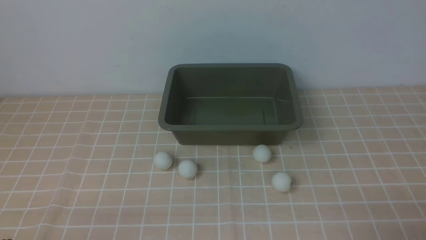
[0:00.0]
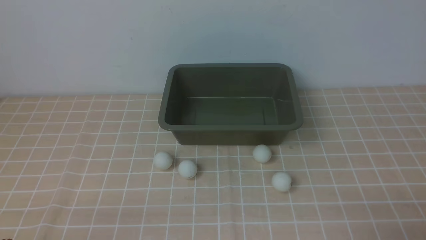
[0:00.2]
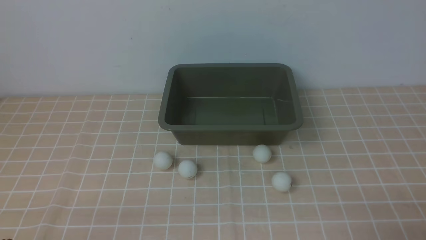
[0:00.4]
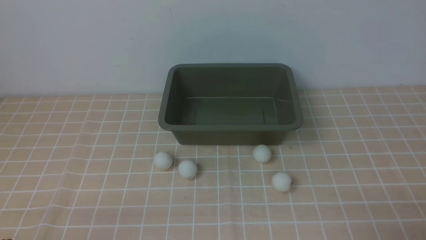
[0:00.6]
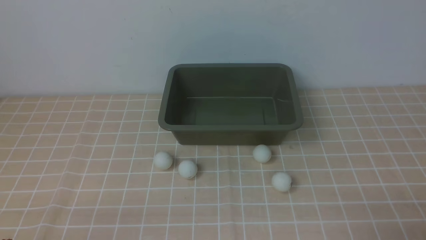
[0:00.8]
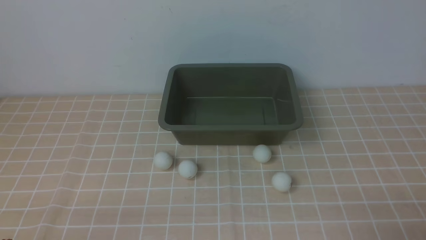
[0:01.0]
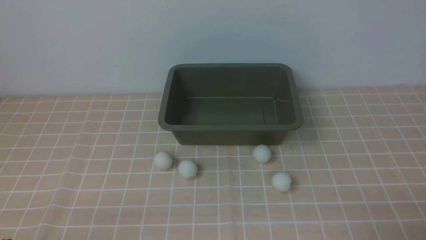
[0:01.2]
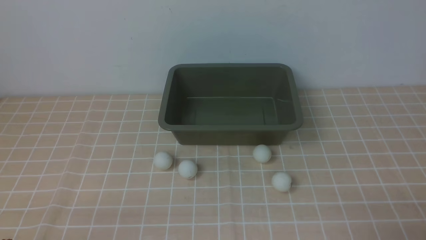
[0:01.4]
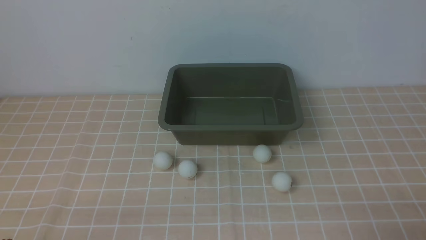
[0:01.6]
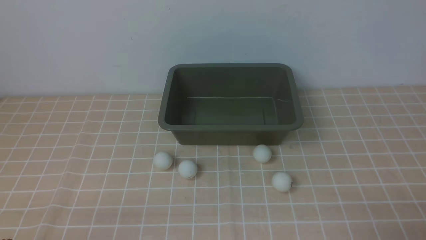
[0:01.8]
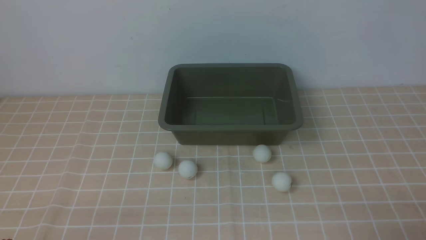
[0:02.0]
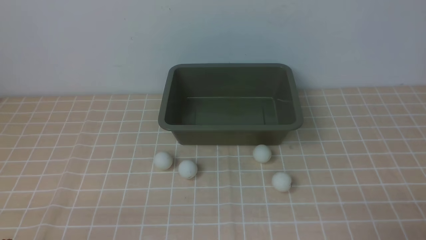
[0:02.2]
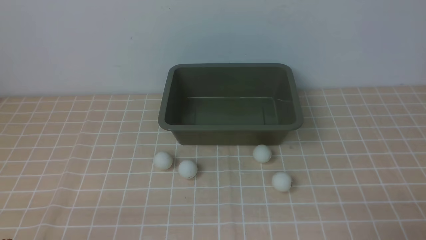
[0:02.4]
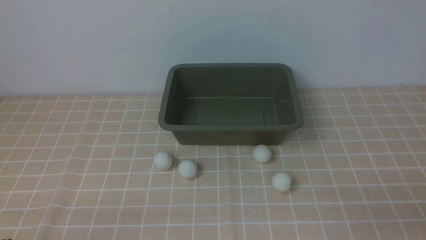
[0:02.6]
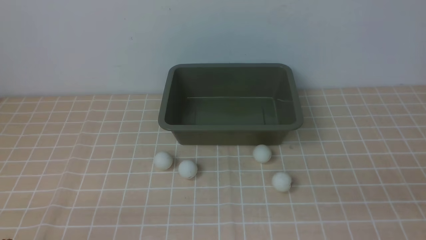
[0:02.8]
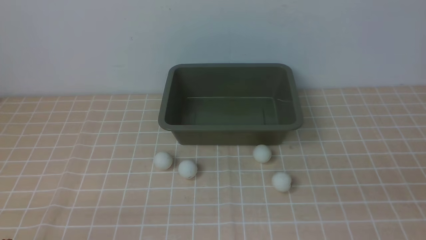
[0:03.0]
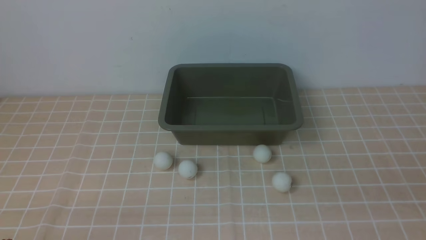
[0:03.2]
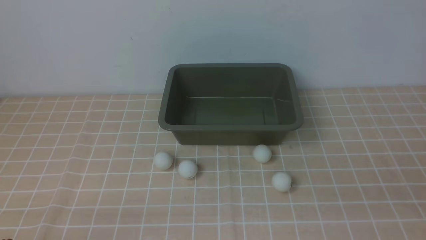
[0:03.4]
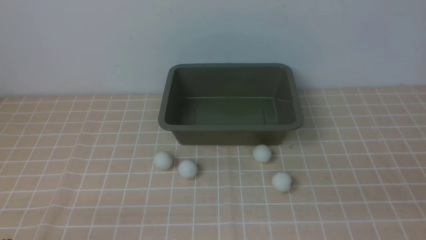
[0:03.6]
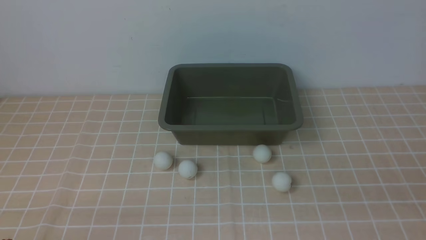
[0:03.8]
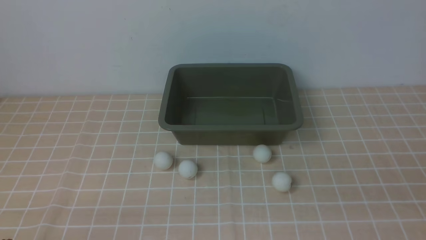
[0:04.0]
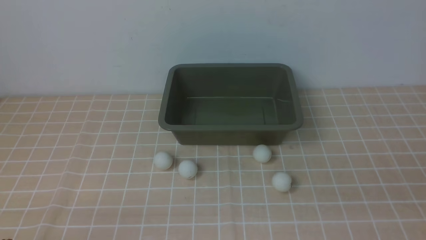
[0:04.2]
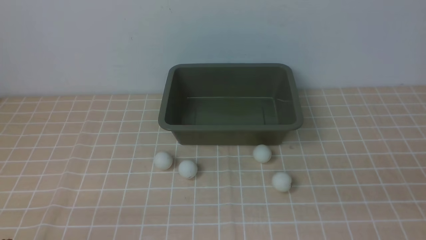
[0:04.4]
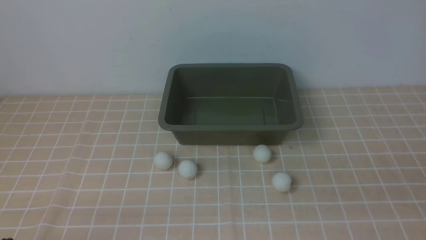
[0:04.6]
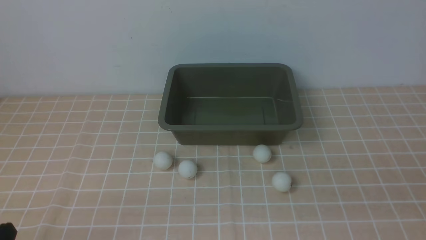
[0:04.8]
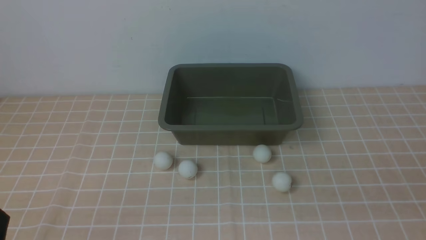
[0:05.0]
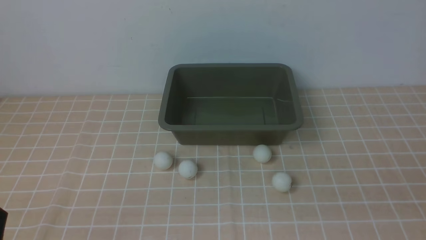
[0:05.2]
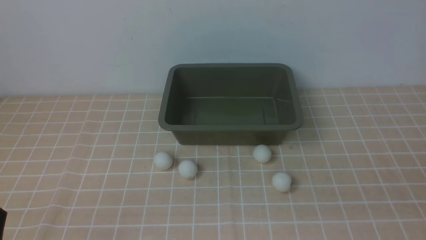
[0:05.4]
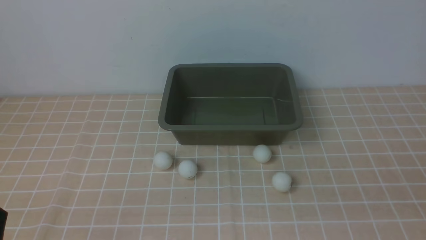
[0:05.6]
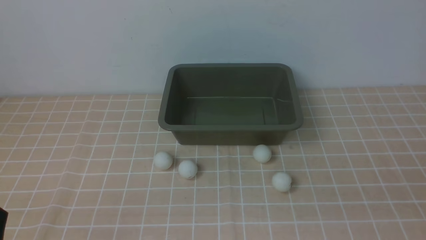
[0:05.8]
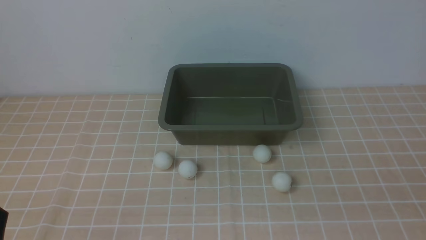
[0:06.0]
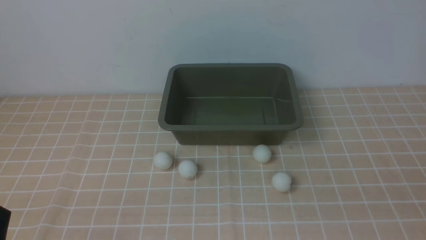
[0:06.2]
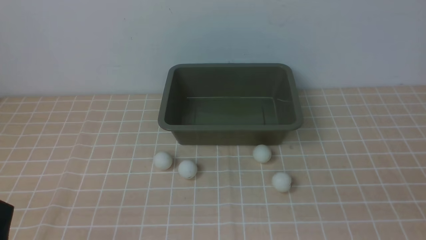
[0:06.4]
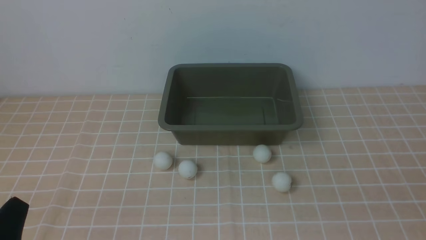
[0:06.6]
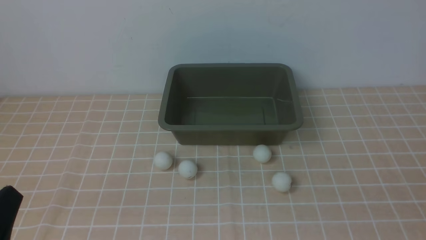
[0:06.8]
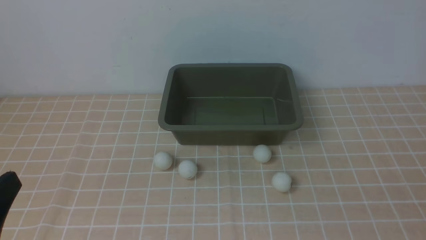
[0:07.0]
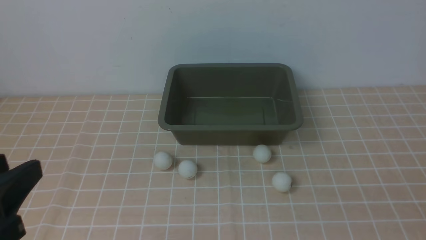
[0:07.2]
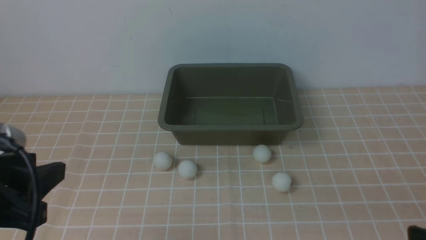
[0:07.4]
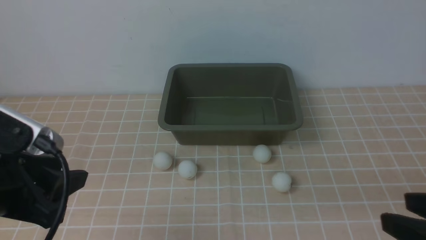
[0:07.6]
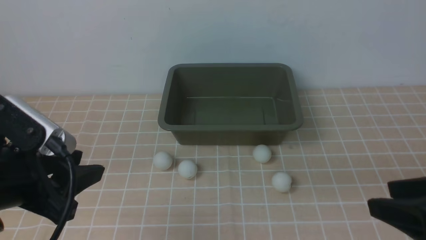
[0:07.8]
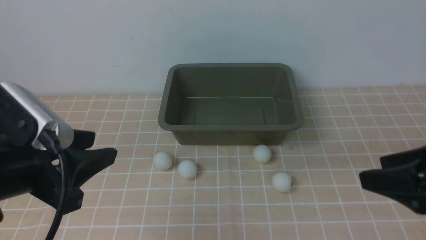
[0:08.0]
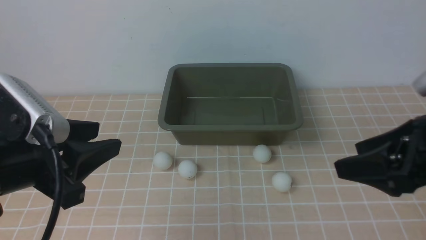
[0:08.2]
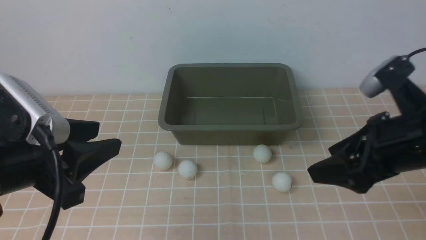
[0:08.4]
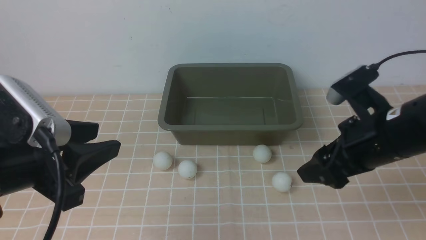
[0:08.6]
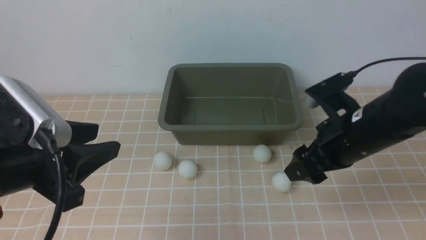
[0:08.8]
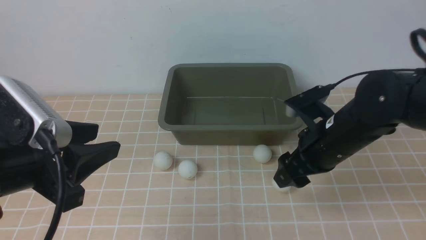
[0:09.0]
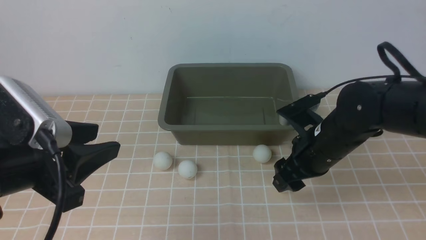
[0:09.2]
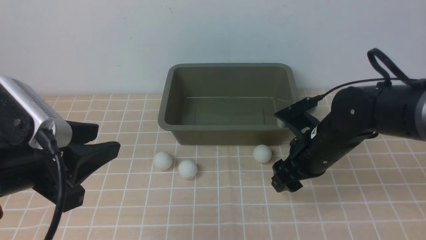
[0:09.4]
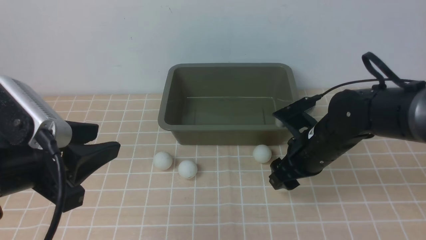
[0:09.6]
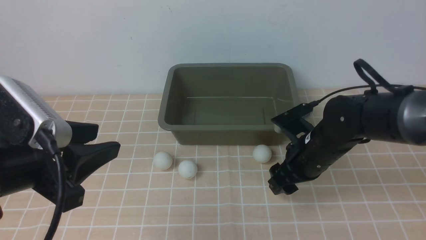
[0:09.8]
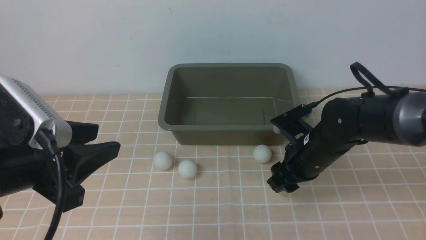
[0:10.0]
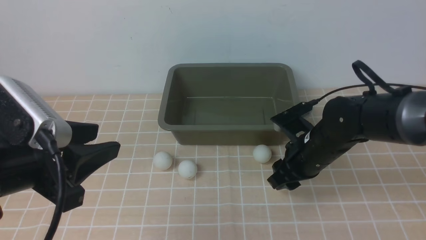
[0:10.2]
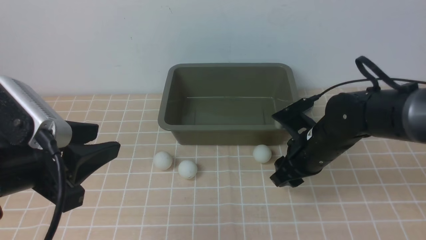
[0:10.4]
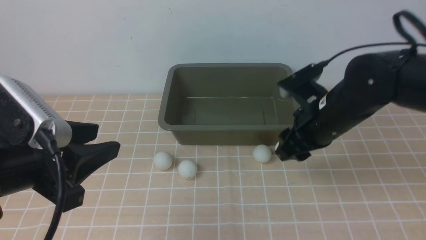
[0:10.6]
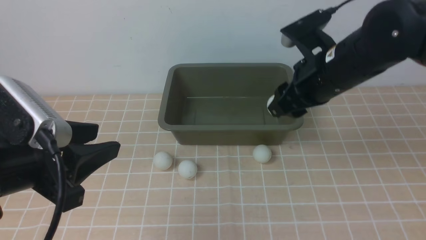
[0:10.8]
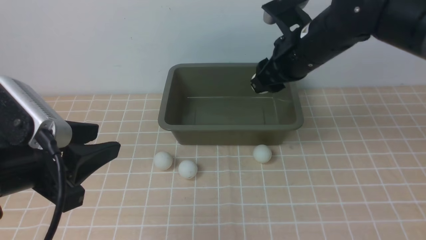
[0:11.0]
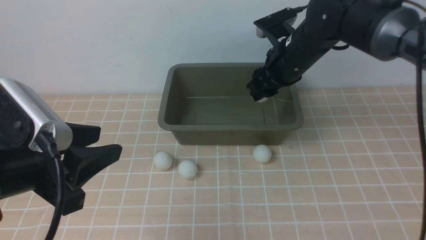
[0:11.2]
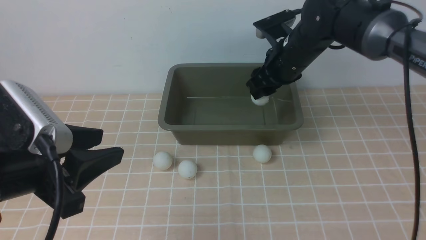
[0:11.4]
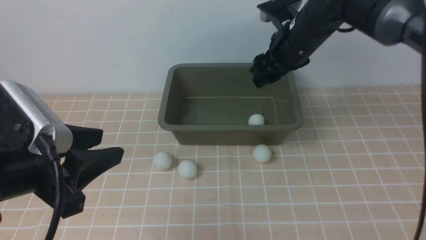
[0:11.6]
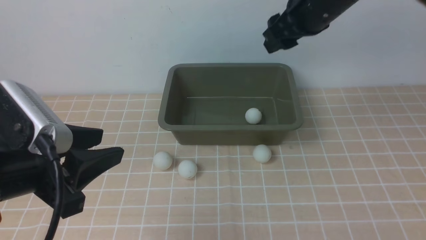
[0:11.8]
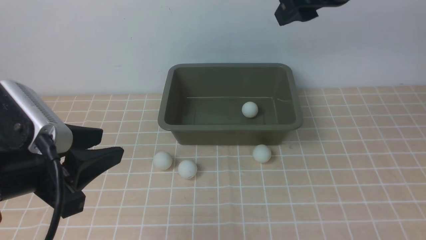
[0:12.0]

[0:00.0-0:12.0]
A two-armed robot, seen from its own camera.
Step, 0:00.0 to 0:10.6: use the right arm to clamp the table tennis ball closest to it.
Step, 0:10.8 to 0:11.8: use the right arm to put the table tennis ball into the box.
0:00.0 to 0:01.6: Neither gripper changes place.
0:06.0 to 0:07.6: The right gripper shifts some 10 cm forward. Meanwhile the left gripper goes some 15 cm upward and forward, and opens up.
0:07.6 to 0:09.0: The right gripper heads forward and to the left, covering about 20 cm, and opens up.
0:09.0 to 0:10.4: The right gripper closes.
0:10.4 to 0:12.0: The right gripper moves upward, some 20 cm, and opens up.

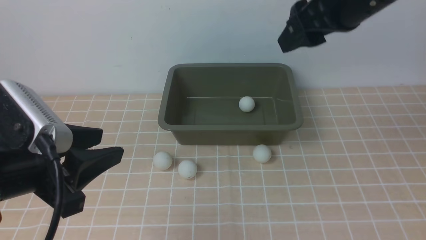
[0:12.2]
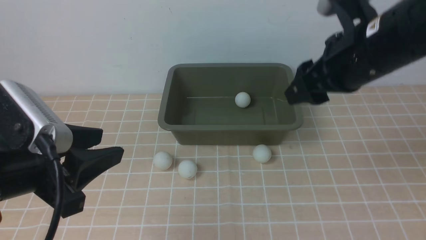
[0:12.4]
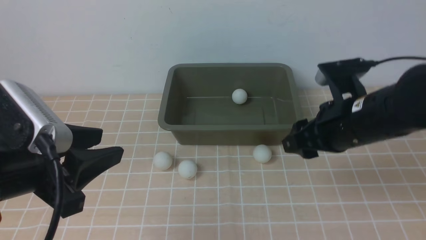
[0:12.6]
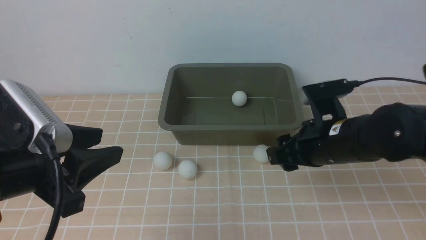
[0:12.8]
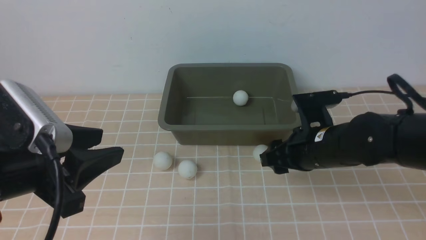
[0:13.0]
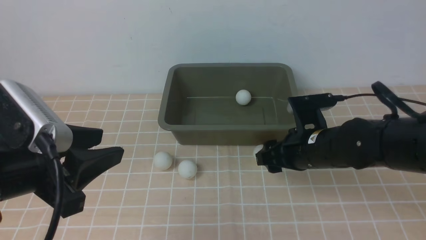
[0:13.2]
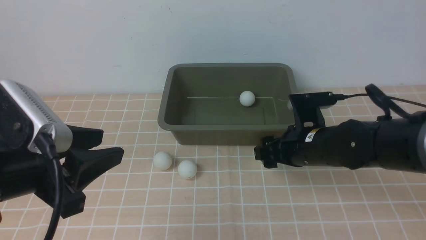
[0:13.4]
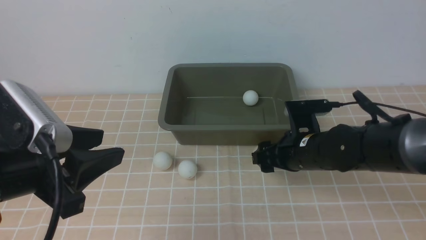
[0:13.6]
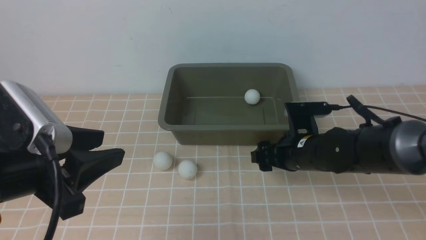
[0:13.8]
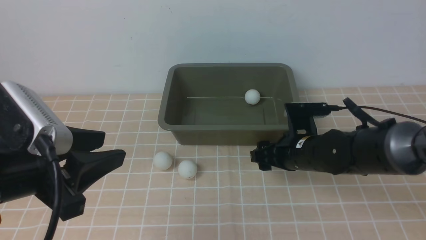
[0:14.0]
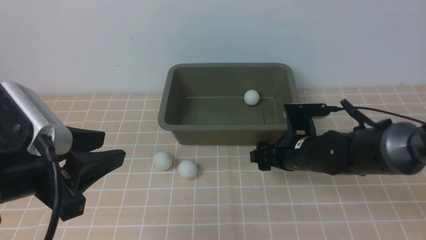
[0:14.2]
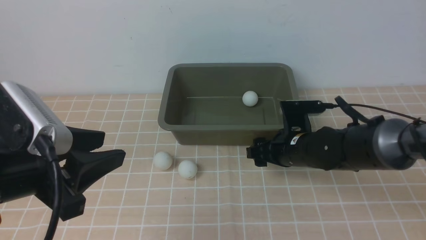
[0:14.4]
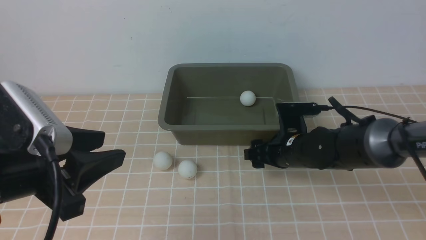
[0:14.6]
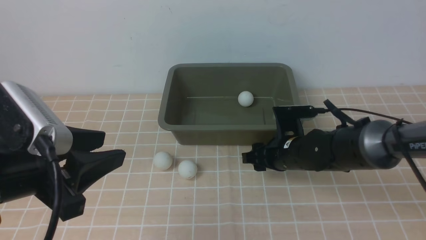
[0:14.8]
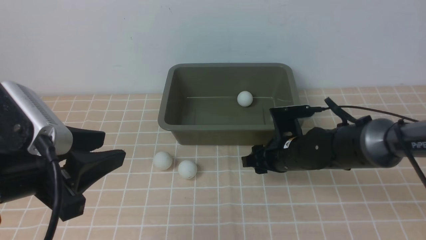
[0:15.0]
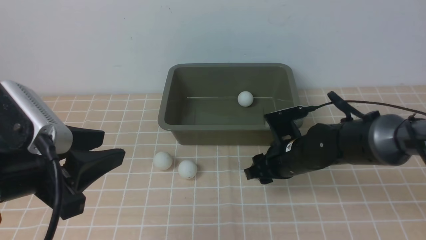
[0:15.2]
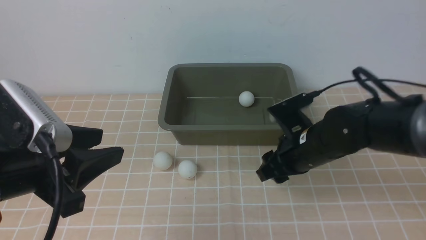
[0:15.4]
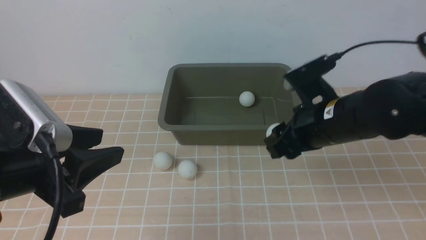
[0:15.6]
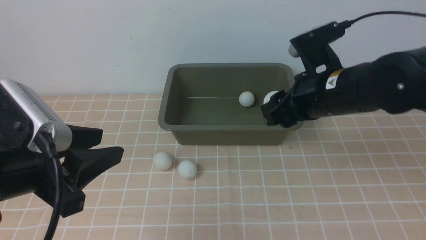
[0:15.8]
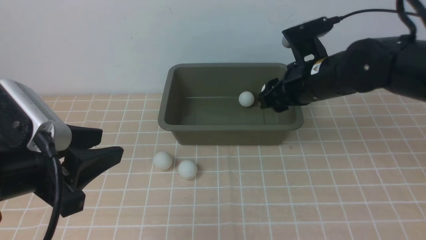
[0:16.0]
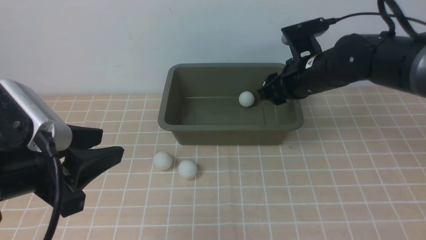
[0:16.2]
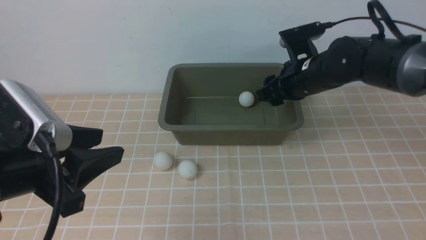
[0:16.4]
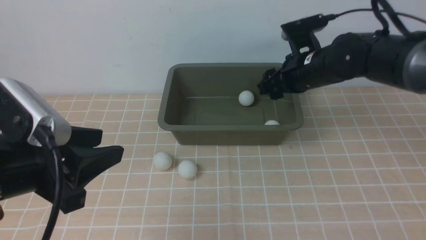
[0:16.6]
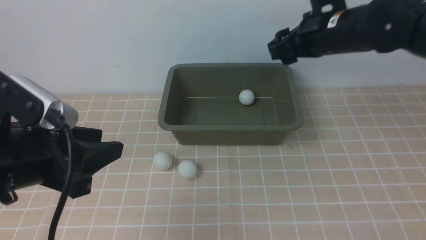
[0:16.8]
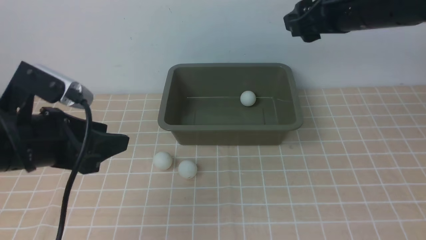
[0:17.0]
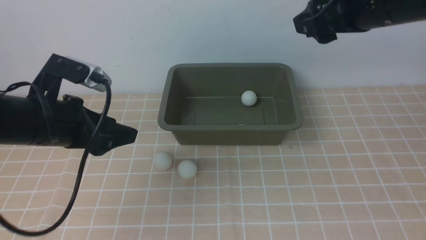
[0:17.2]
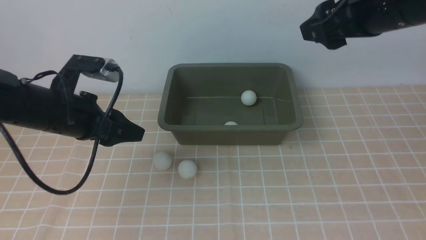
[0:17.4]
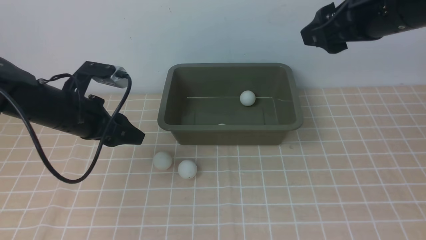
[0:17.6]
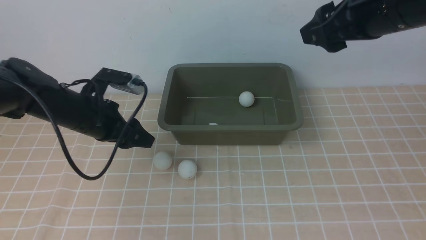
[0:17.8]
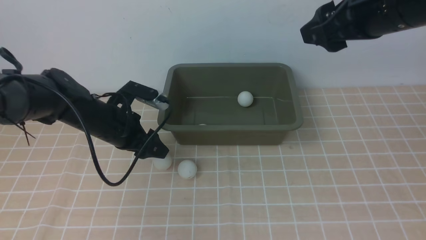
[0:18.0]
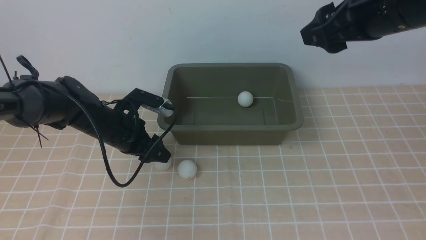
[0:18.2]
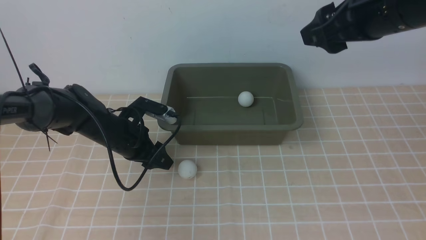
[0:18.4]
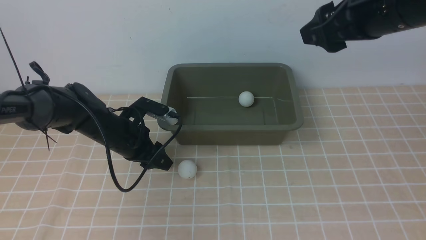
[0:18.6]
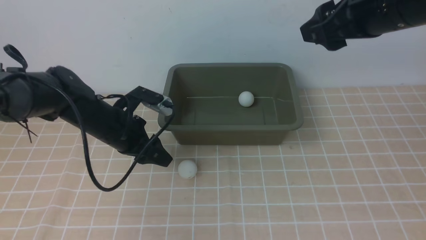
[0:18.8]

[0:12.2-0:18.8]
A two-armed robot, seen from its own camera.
Step, 0:12.2 to 0:15.6: use the right arm to clamp the table tennis ball closest to it.
Step, 0:15.8 to 0:16.6: use the right arm to put the table tennis ball into the box.
Step, 0:16.8 to 0:18.8: use the left arm to clamp the table tennis ball closest to it.
0:12.2 to 0:13.8: The right gripper travels downward by approximately 25 cm, and opens up.
0:13.8 to 0:15.4: The right gripper goes approximately 5 cm upward, and closes its fingers.
0:15.4 to 0:17.2: The left gripper goes roughly 10 cm forward, while the right gripper moves upward, roughly 20 cm, and opens.
0:17.2 to 0:18.8: The left gripper shifts approximately 10 cm forward and downward.
